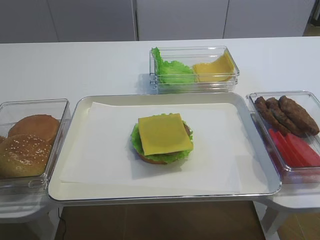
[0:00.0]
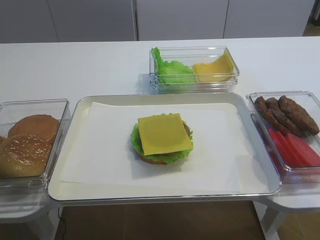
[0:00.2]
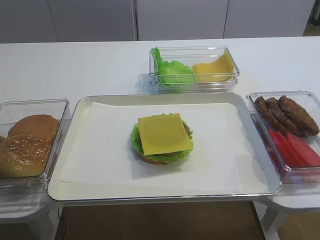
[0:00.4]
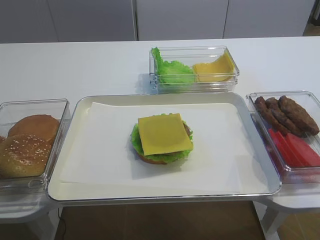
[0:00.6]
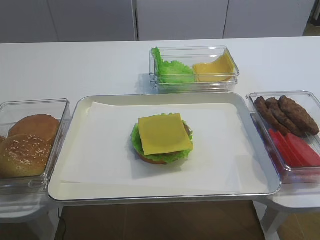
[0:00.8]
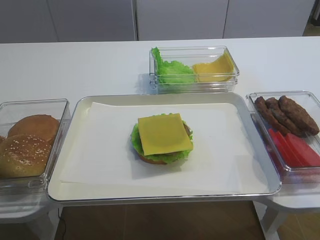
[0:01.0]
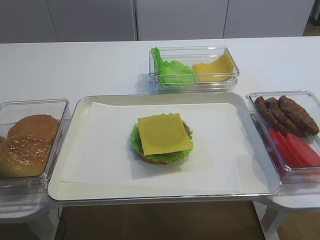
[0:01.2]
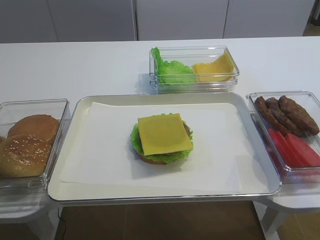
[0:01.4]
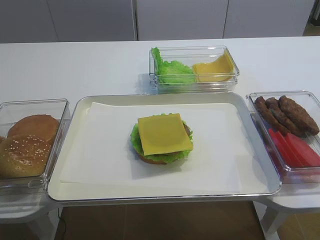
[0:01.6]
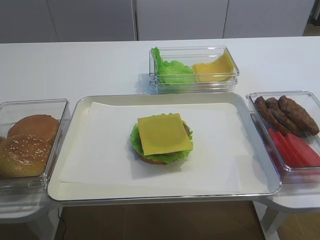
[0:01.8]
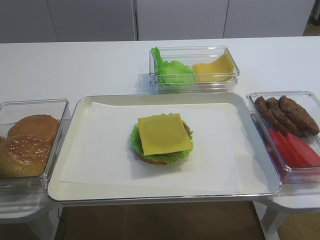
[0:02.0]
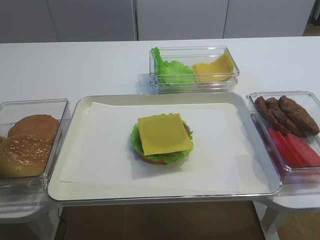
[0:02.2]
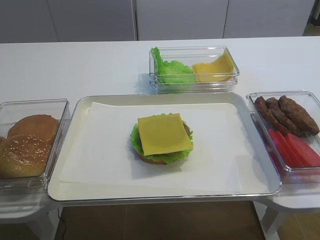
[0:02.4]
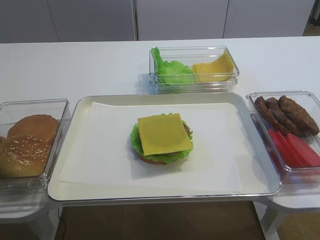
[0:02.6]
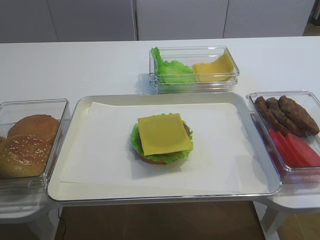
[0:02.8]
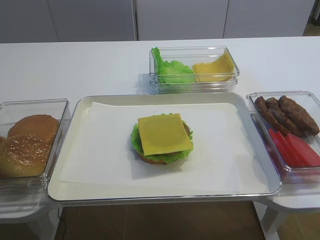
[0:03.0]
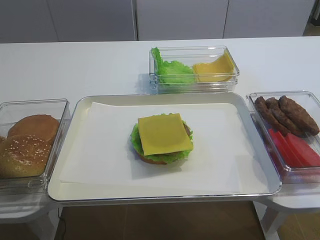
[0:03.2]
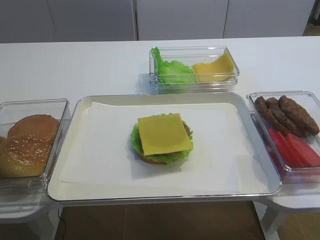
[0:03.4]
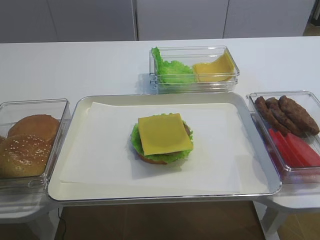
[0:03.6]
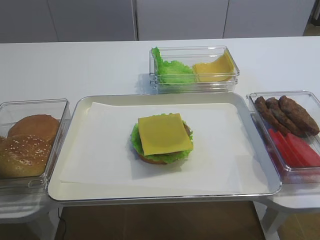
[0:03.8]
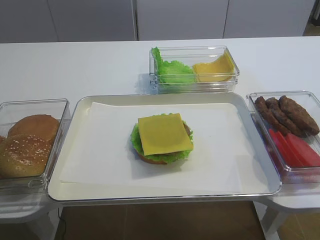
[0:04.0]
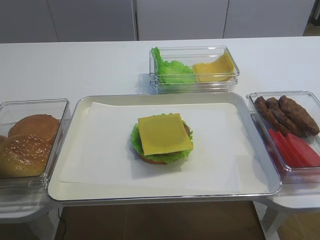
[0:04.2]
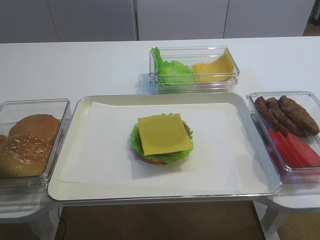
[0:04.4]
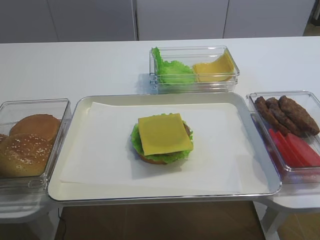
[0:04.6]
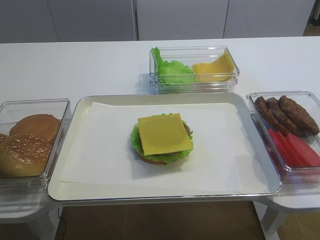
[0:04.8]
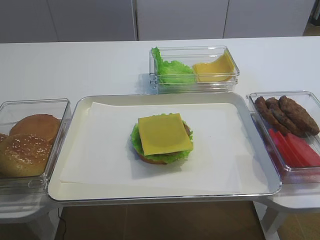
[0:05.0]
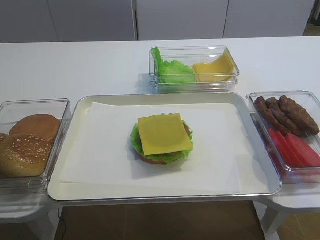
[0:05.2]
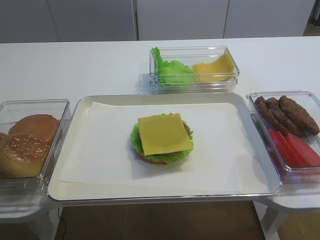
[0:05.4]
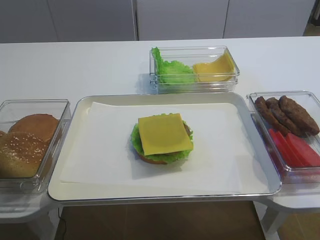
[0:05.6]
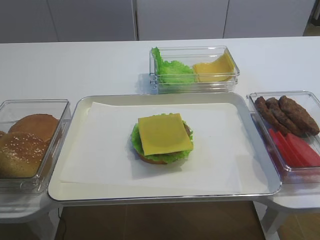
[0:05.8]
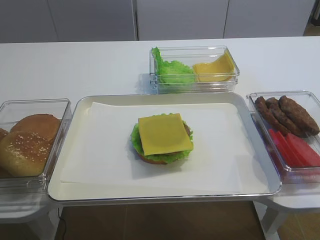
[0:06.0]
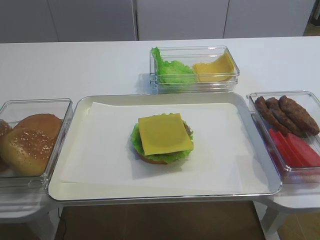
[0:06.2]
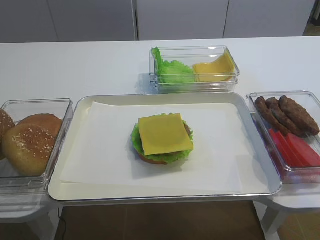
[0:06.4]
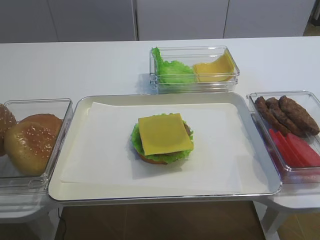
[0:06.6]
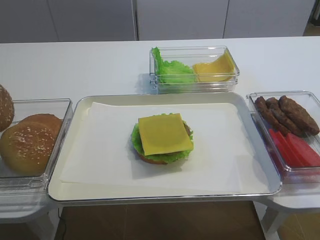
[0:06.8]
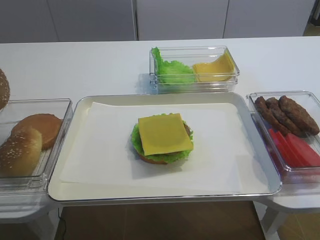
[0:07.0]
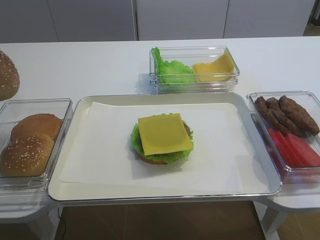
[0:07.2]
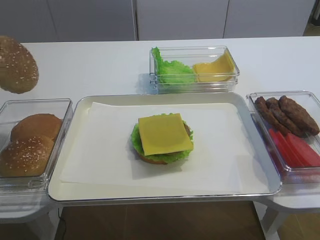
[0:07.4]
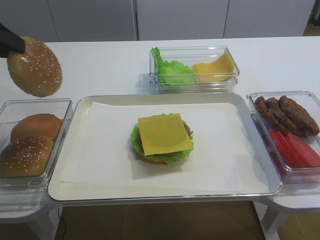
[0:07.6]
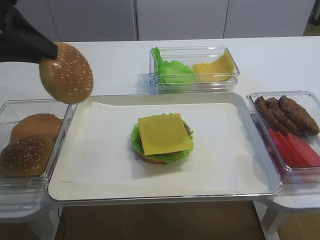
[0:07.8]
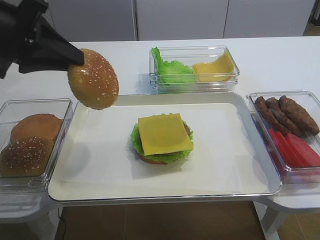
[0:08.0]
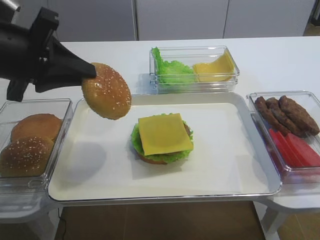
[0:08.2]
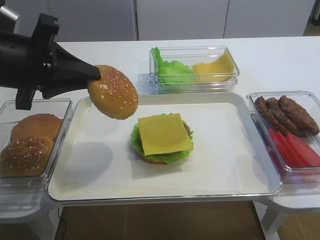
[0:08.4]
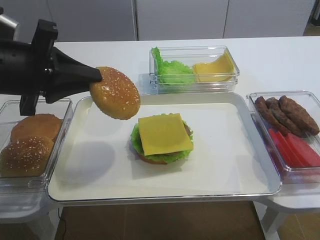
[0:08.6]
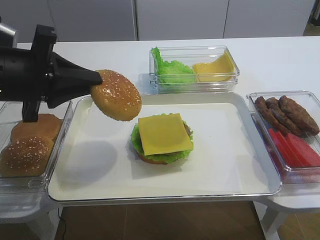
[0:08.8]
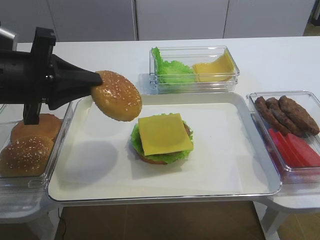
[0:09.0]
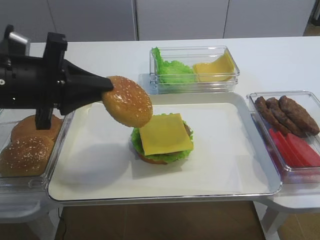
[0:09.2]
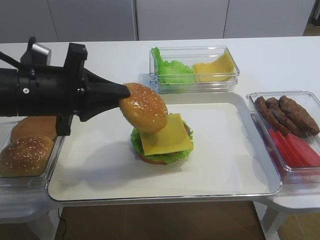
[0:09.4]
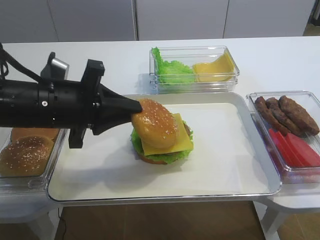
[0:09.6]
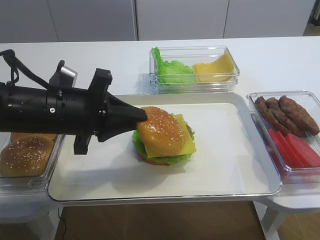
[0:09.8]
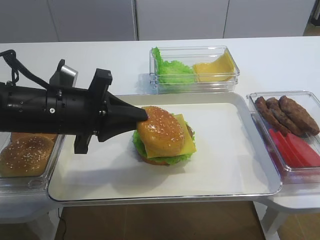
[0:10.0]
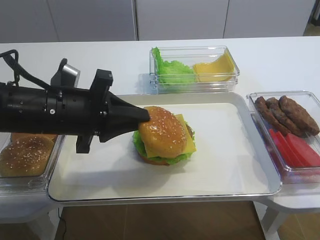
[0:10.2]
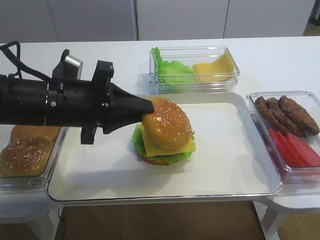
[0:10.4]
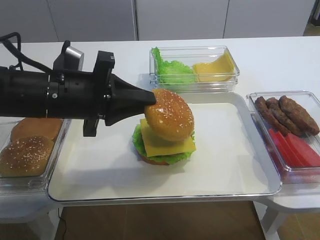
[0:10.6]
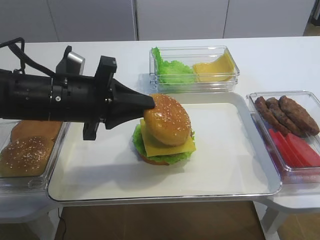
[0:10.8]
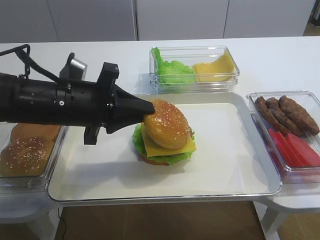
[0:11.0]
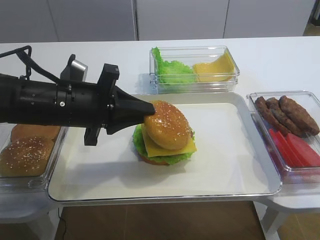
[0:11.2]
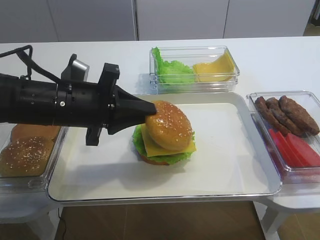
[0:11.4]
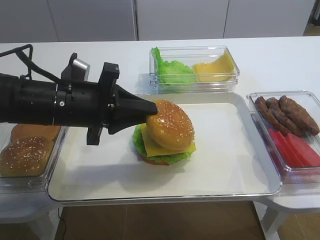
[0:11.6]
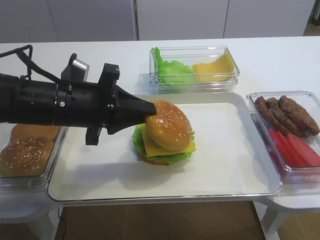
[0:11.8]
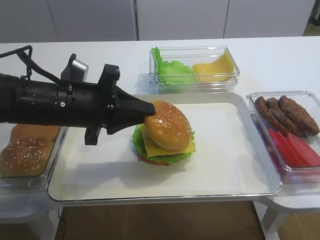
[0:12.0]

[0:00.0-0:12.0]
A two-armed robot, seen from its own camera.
0:06.0 to 0:07.6: The left gripper travels upward and to the right by roughly 10 cm.
0:07.6 to 0:09.0: The left gripper moves downward and to the right, roughly 10 cm.
0:09.0 to 0:10.4: The left gripper is displaced to the right by approximately 5 cm.
0:10.4 to 0:12.0: The grippers move only a little.

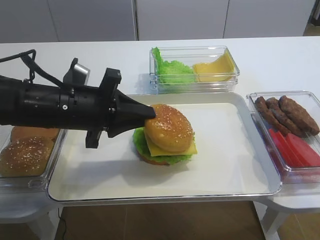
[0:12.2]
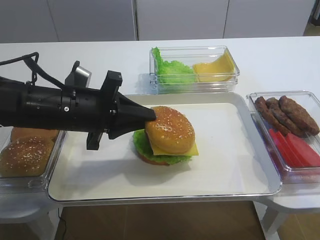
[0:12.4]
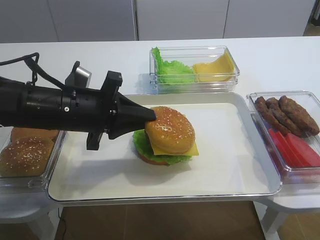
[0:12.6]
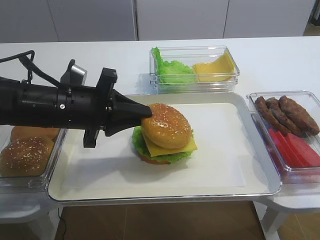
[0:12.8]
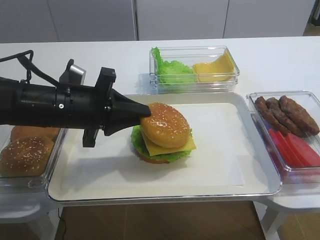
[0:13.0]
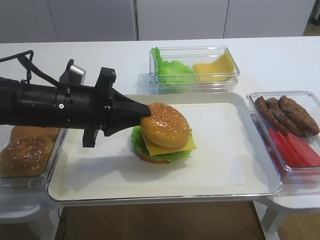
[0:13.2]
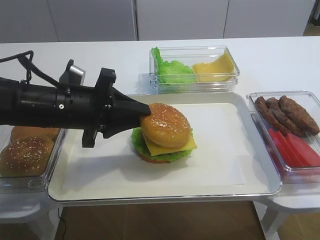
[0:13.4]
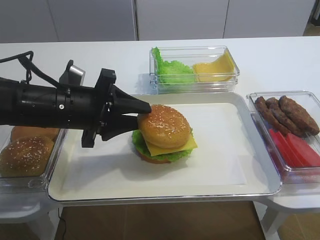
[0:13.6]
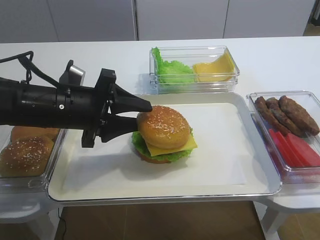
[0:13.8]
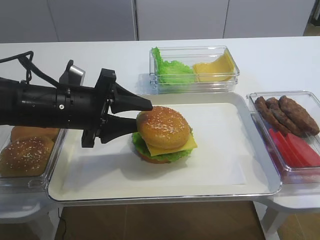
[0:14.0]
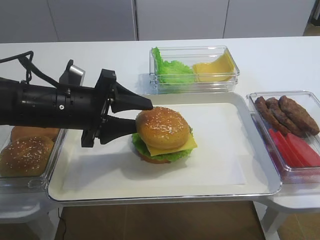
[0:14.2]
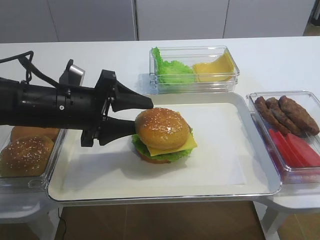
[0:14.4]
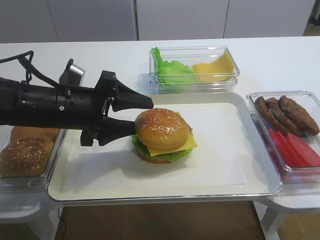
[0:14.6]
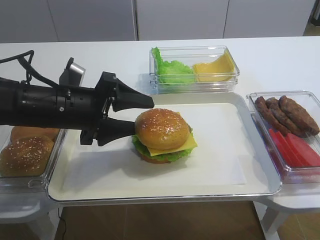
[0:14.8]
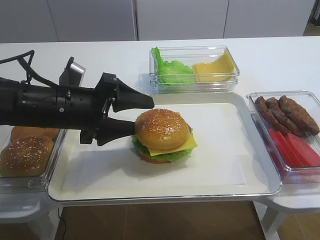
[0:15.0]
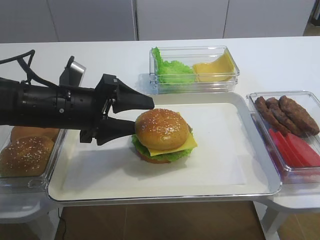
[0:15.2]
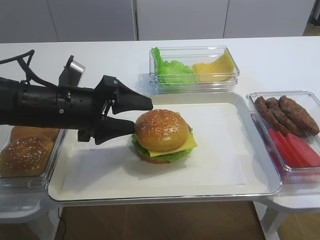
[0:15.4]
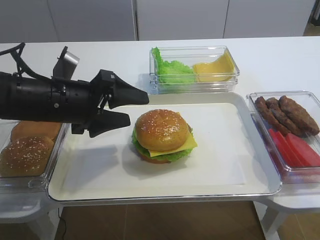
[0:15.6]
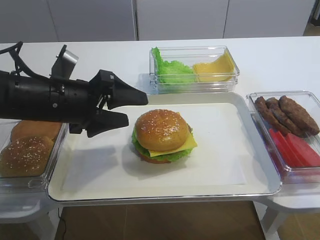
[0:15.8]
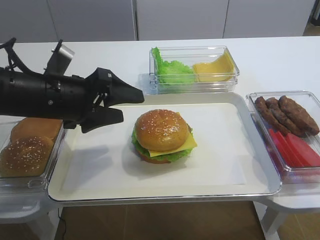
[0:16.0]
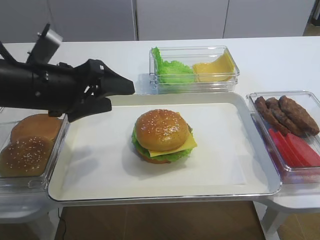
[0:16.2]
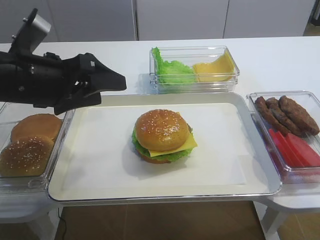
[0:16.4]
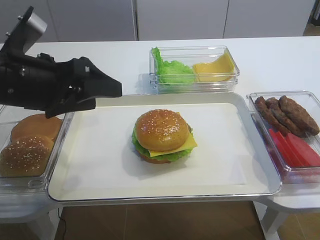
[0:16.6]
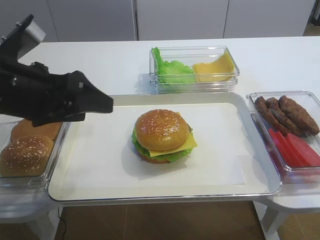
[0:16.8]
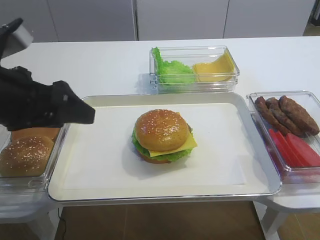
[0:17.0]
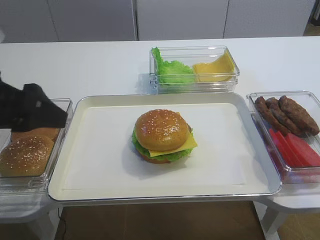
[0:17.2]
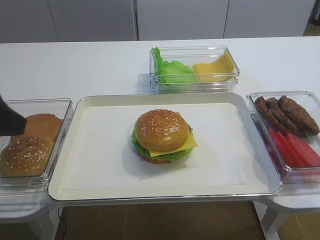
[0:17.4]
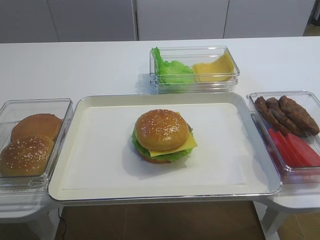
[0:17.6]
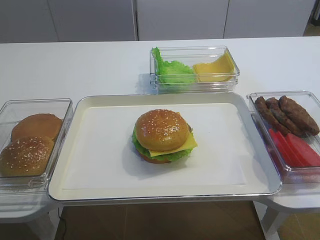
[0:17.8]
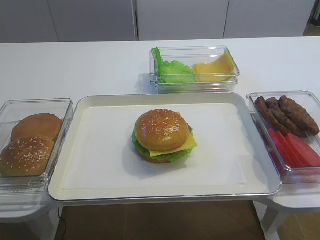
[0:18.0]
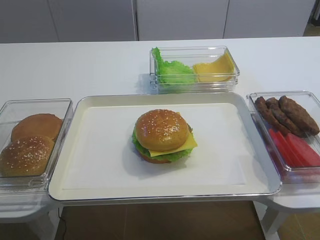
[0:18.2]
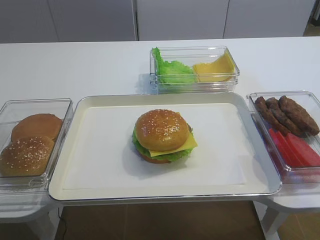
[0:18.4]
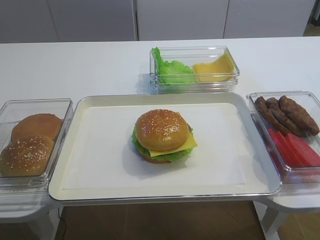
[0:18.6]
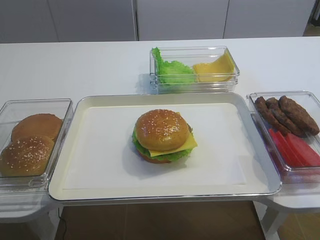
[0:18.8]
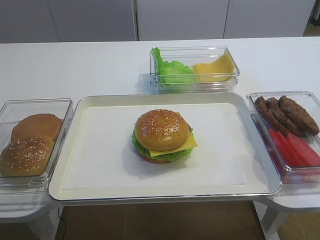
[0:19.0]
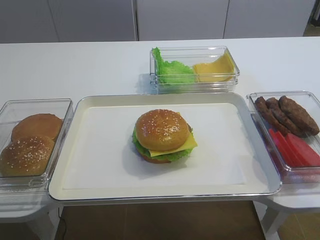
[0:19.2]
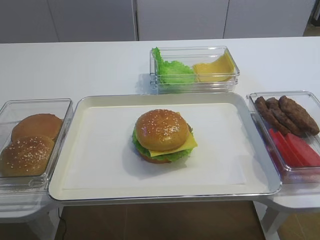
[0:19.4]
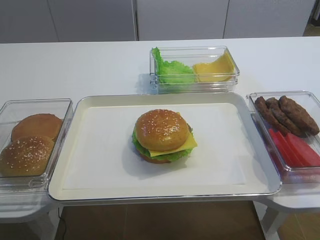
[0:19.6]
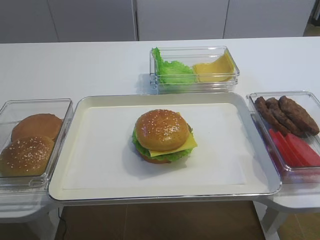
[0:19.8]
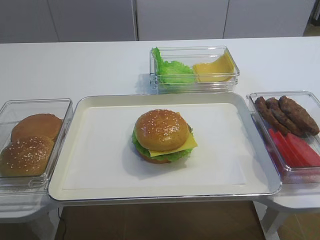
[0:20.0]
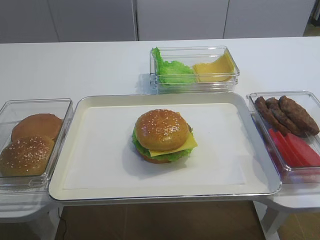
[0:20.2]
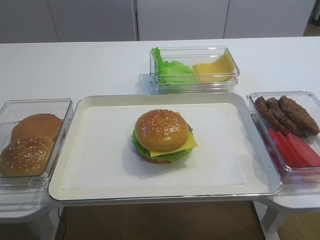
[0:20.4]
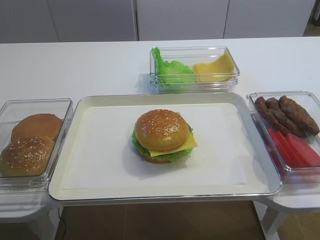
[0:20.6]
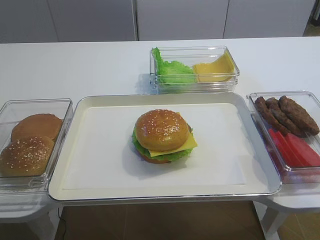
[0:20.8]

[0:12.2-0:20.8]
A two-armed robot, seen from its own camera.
Step, 0:12.2 to 0:15.8: Place the hamburger lid on the cheese slice with the left gripper.
0:12.2 to 0:13.6: The left gripper opens up.
0:13.6 to 0:15.0: The left gripper opens its fingers.
0:15.0 to 0:16.6: The left gripper goes approximately 5 cm upward.
0:16.6 to 0:18.0: The left gripper heads backward and to the left, covering about 20 cm.

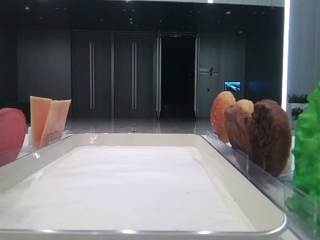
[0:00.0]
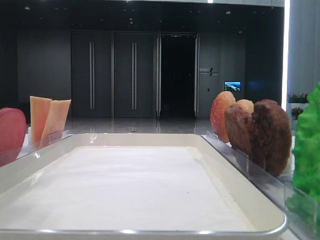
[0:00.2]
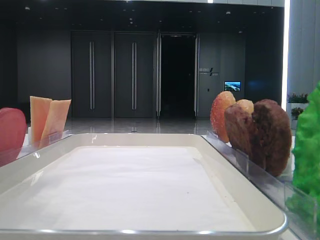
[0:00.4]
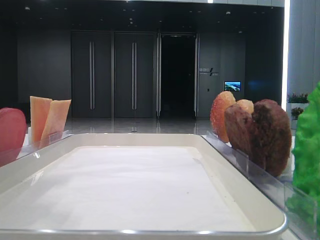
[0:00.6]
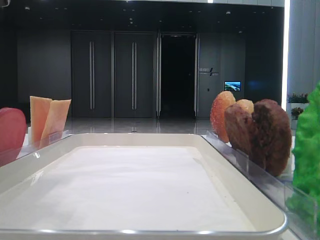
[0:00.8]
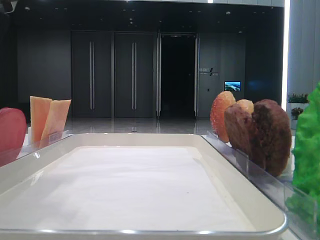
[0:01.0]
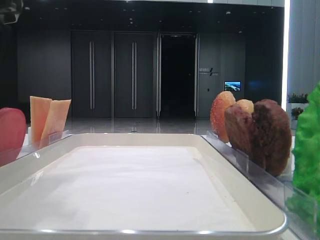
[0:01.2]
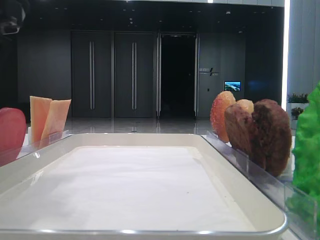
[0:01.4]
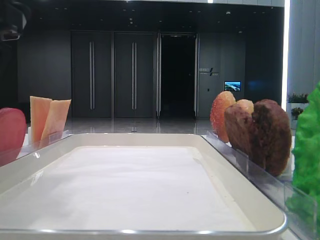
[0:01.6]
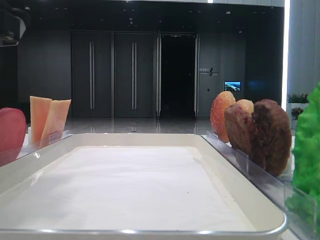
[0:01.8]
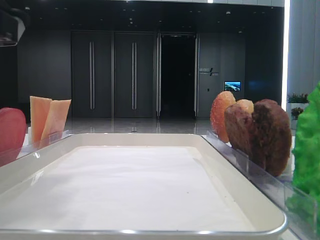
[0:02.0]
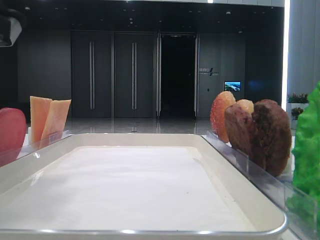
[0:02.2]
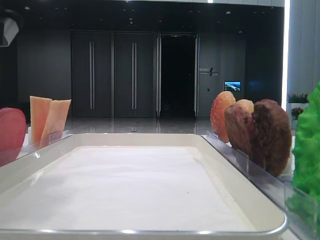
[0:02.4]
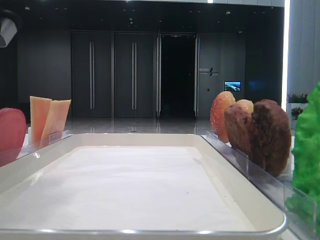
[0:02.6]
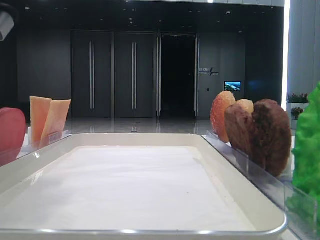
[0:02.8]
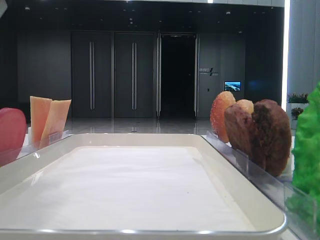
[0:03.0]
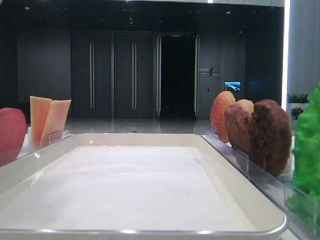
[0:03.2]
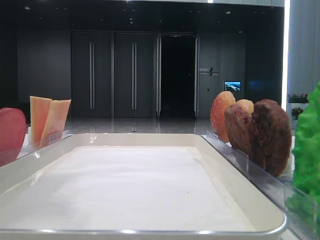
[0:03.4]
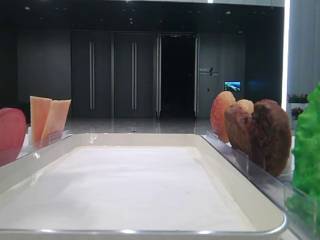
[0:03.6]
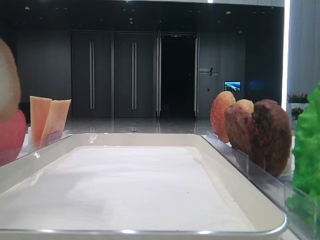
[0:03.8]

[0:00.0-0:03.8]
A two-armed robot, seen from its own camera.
0:00.0 to 0:01.2: The left gripper goes approximately 5 cm to the right.
0:02.6 to 0:03.8: The left gripper moves upward, about 5 cm.
